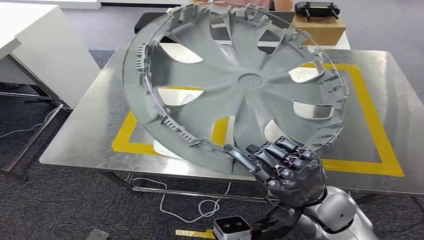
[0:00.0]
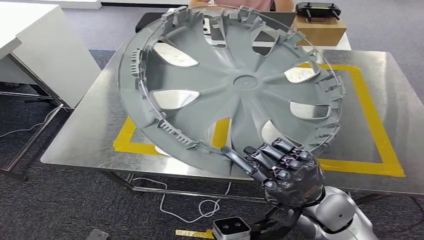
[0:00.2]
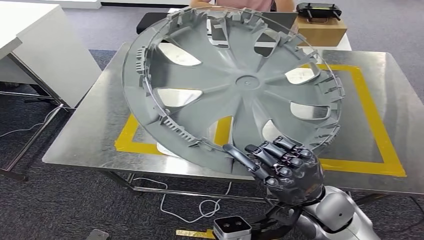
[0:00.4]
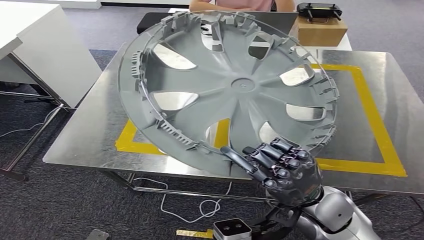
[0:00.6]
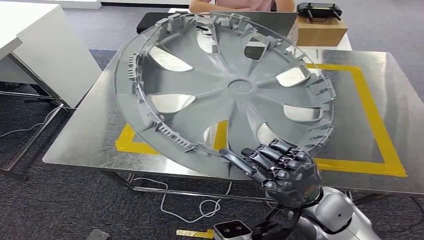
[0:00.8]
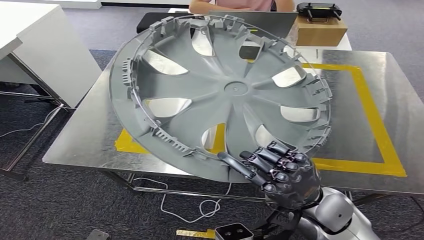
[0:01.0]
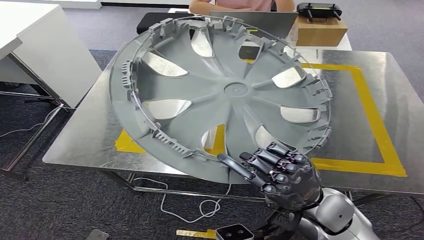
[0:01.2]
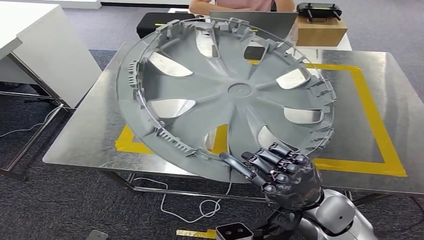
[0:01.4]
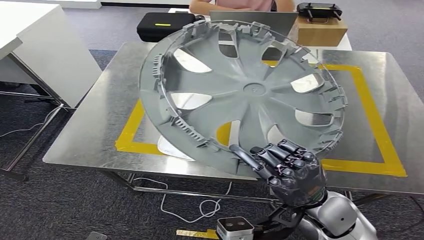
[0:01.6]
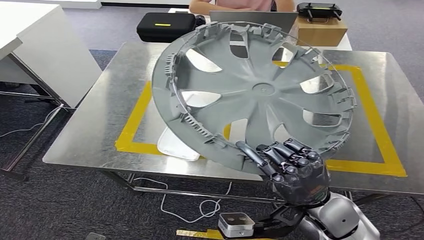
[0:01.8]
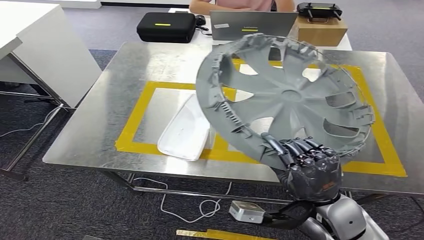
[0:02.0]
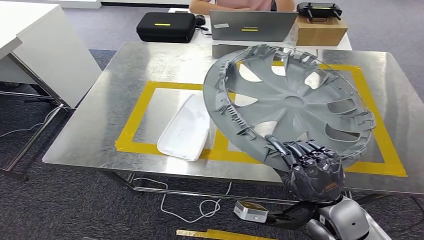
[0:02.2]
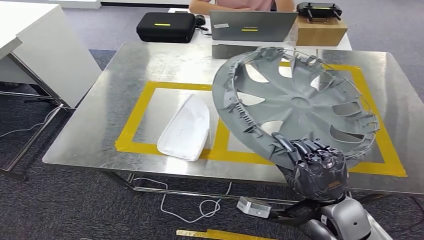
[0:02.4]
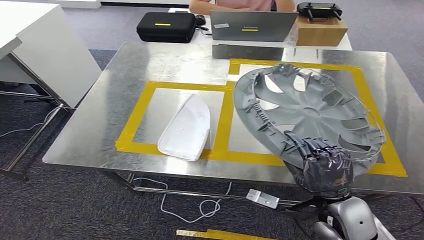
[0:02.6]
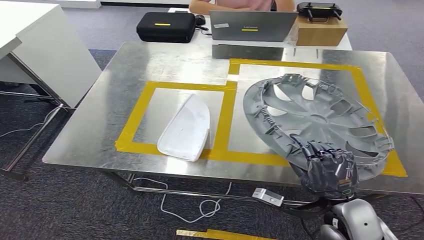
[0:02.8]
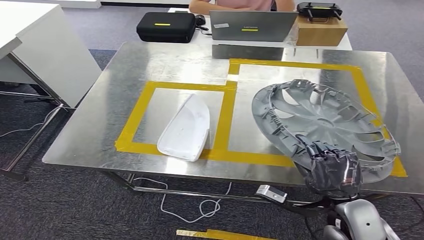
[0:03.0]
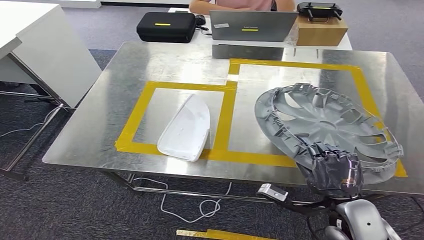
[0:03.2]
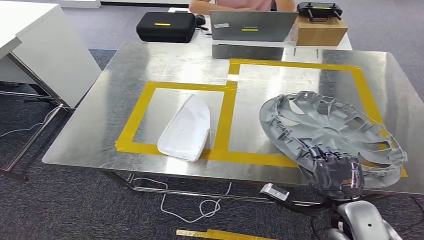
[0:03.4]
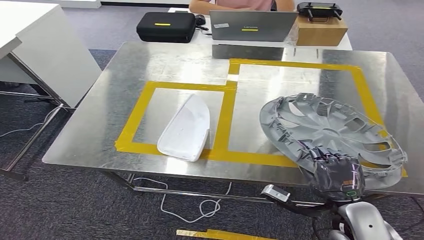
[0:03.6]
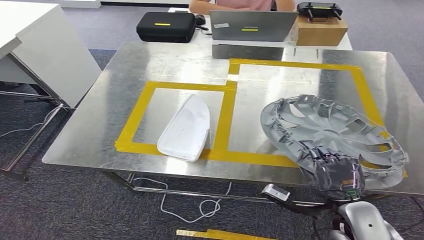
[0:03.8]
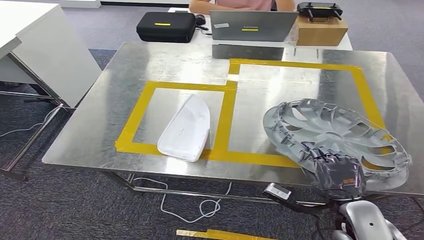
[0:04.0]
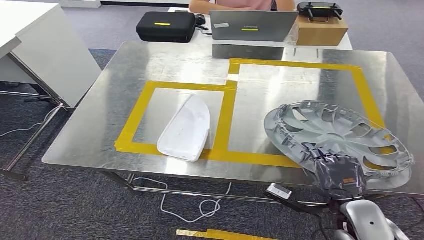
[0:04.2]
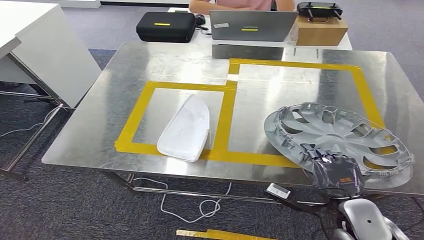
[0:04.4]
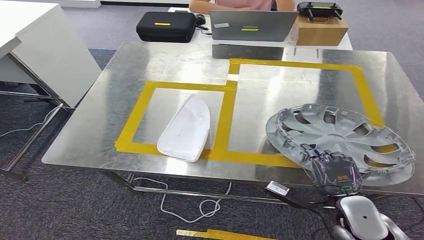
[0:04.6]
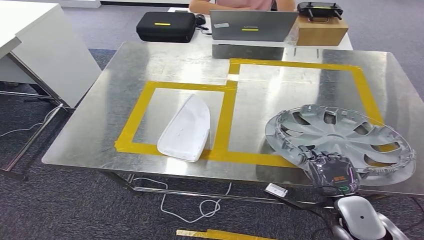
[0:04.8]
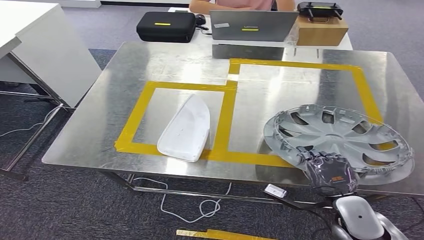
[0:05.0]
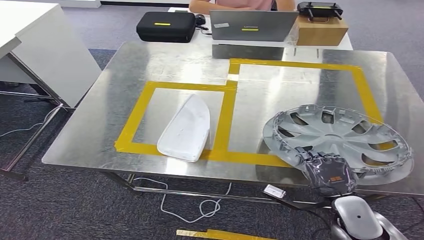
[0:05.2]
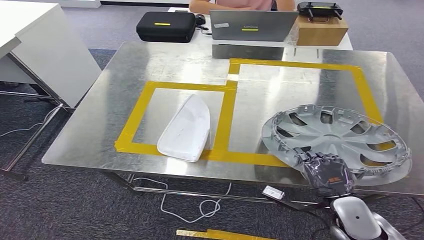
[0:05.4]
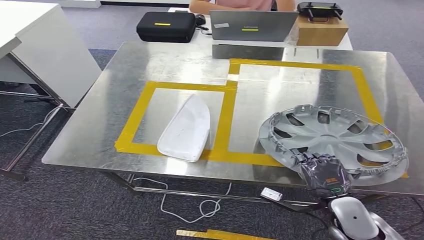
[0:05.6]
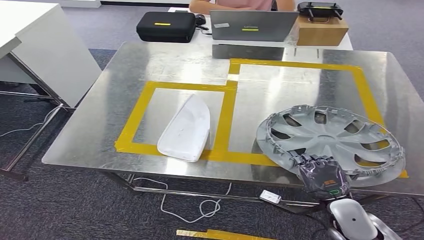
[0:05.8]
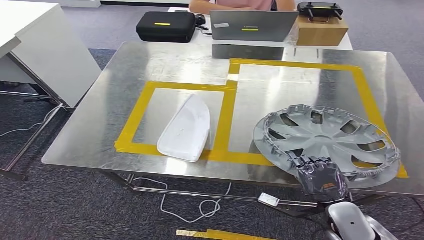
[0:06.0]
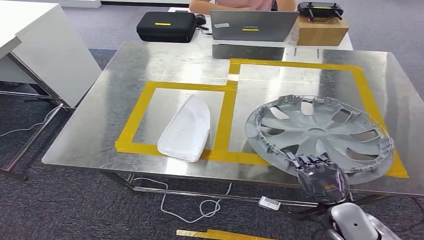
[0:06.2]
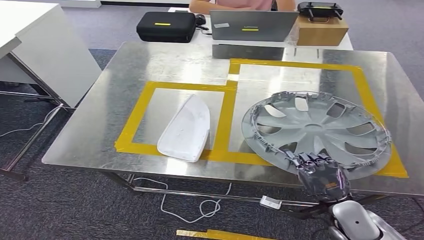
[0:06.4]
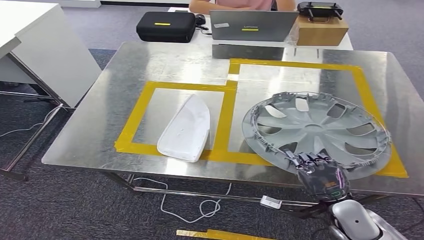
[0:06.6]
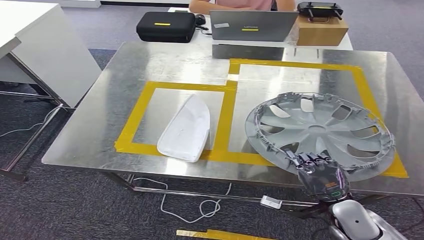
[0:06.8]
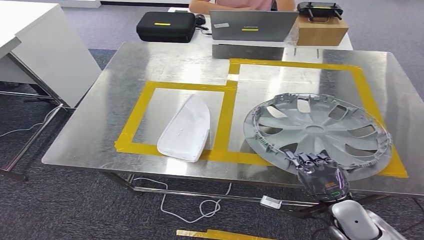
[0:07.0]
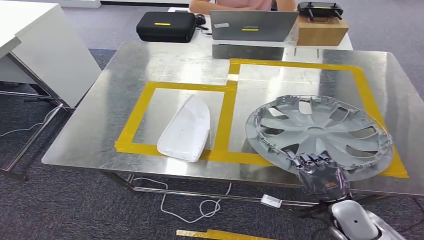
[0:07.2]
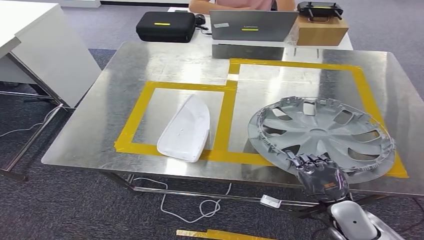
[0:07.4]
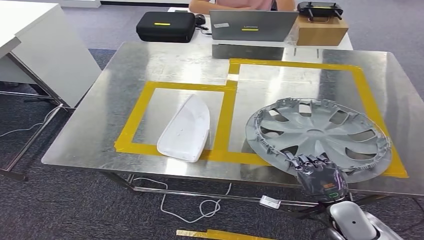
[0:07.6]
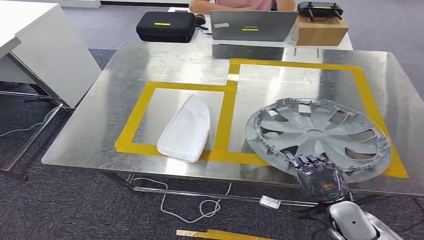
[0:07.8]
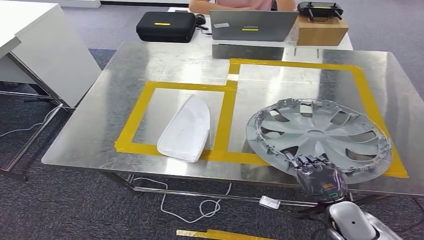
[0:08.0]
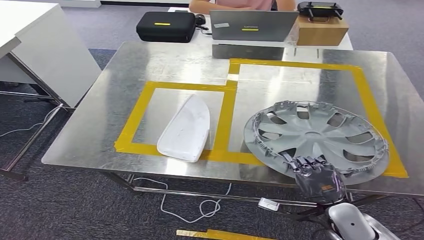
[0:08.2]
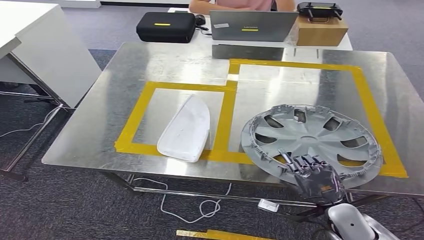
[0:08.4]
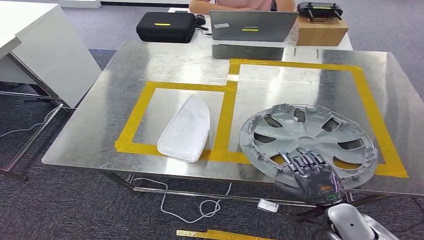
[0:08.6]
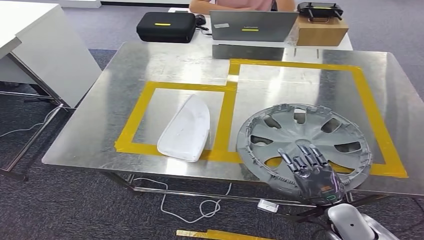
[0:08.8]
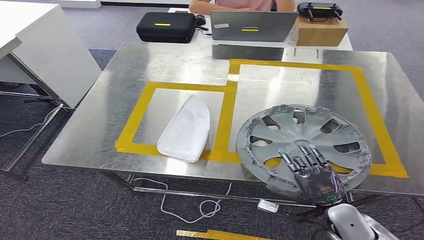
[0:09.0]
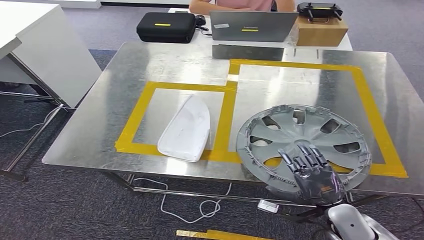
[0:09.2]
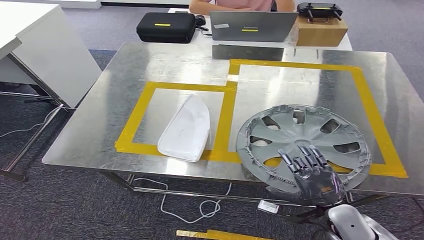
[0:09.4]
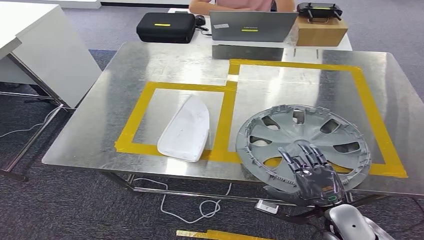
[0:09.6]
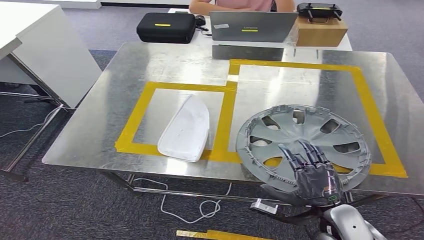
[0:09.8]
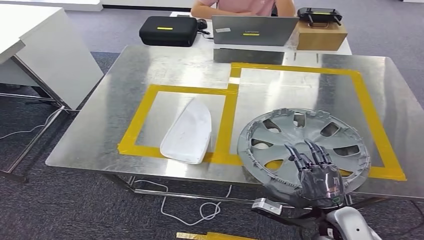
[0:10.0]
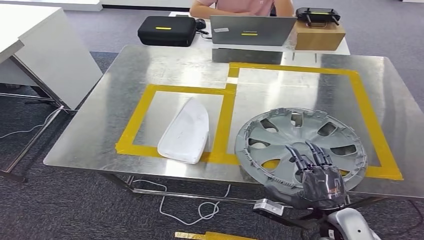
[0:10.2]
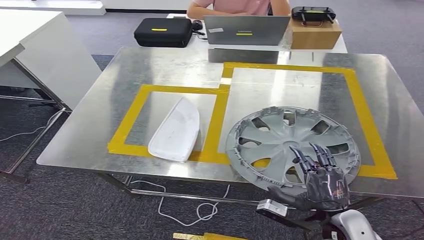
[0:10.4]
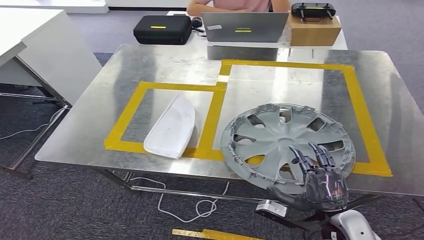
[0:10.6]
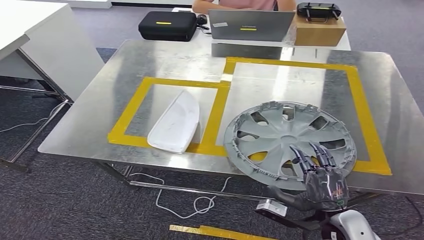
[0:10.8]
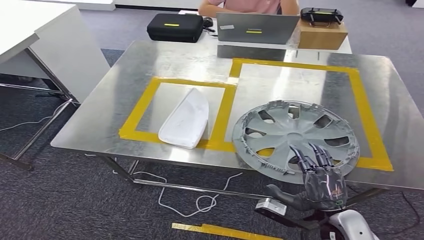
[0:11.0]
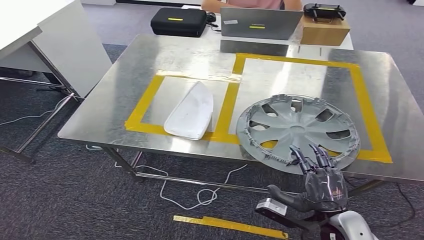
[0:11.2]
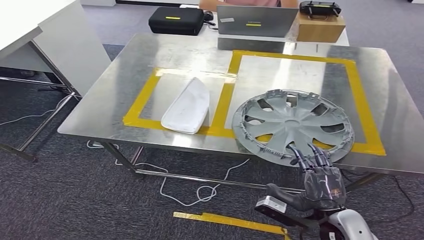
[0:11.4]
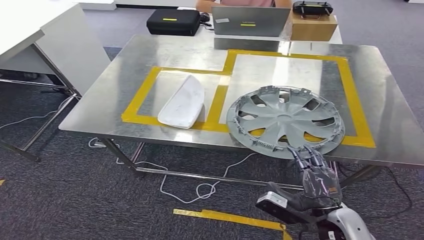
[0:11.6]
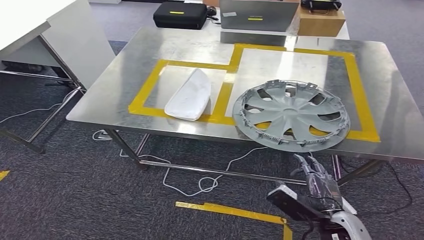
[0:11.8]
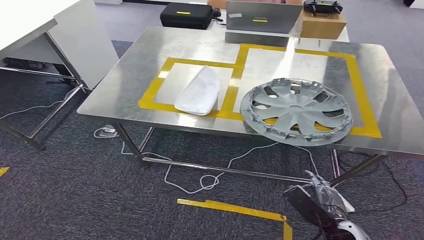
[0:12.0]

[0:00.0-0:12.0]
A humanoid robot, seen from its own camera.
Step, 0:00.0 to 0:10.4: Insert the small component into the corresponding slot on the workbench.
0:00.0 to 0:01.6: The hands move only a little.
0:03.0 to 0:04.4: The hands stay close to where they were, moving slightly.
0:04.4 to 0:07.6: The hands make only small movements.
0:07.6 to 0:09.0: The two hands keep their place.

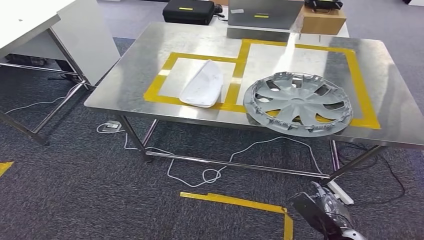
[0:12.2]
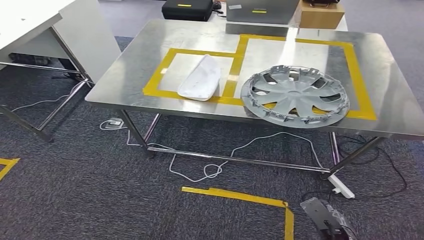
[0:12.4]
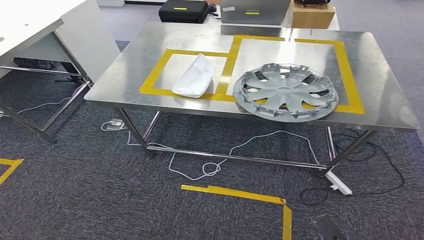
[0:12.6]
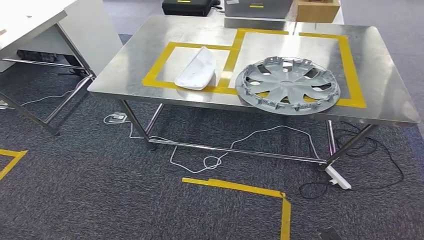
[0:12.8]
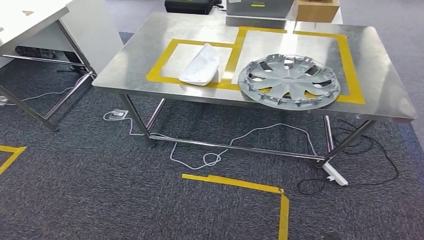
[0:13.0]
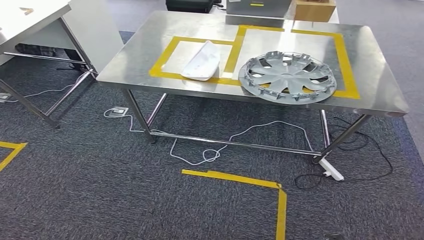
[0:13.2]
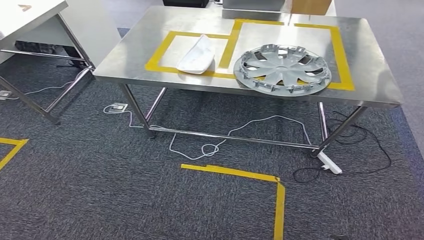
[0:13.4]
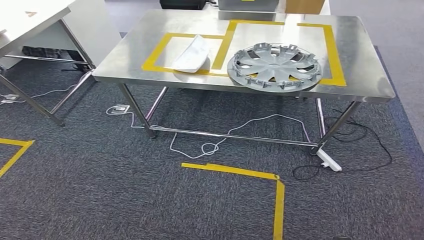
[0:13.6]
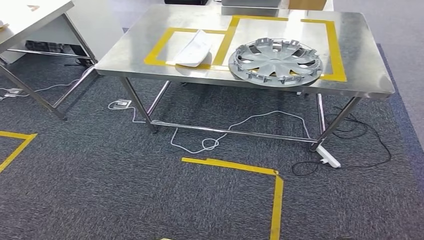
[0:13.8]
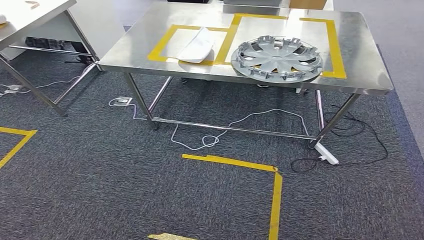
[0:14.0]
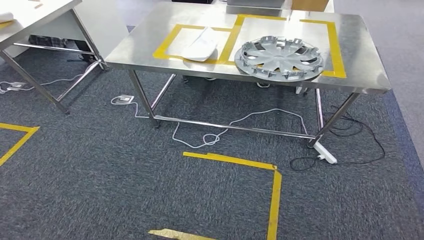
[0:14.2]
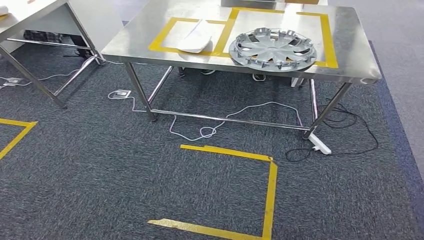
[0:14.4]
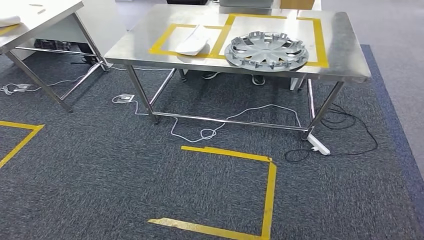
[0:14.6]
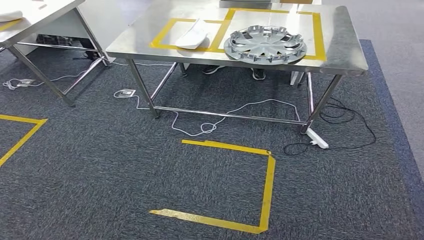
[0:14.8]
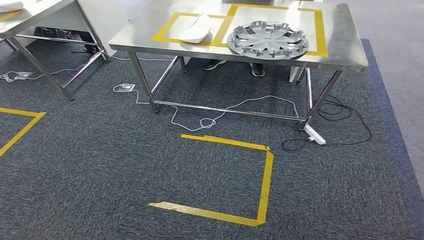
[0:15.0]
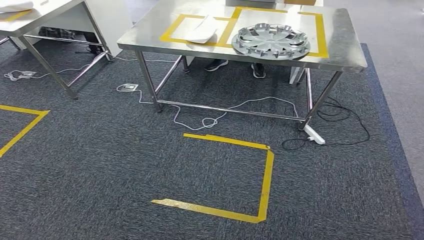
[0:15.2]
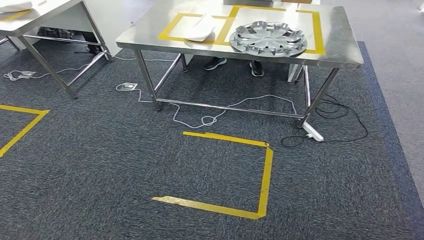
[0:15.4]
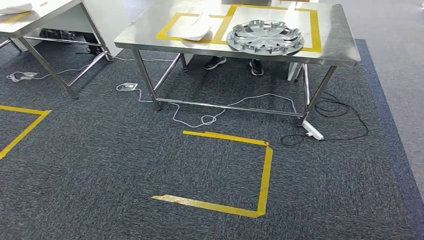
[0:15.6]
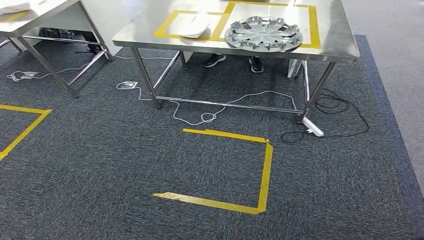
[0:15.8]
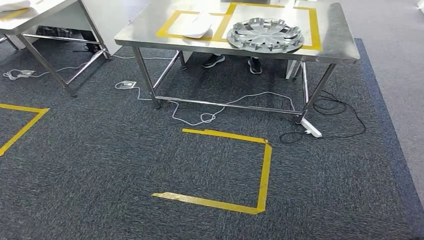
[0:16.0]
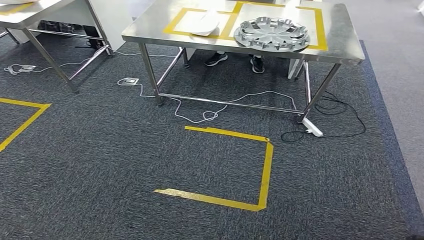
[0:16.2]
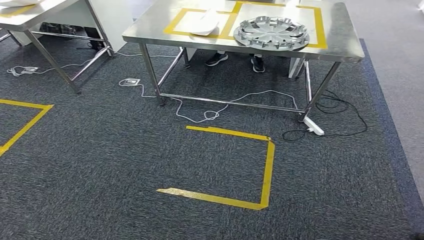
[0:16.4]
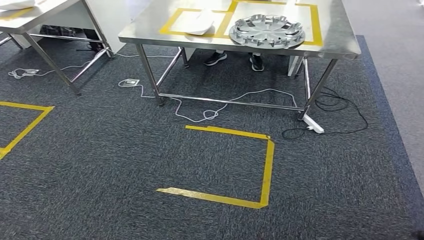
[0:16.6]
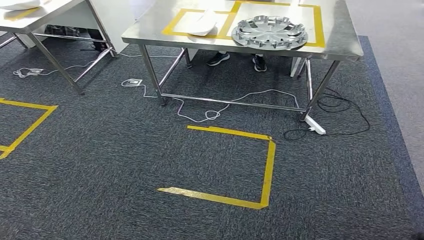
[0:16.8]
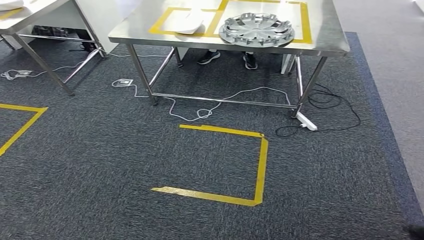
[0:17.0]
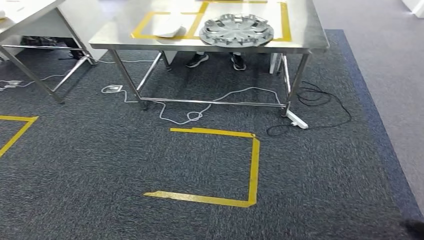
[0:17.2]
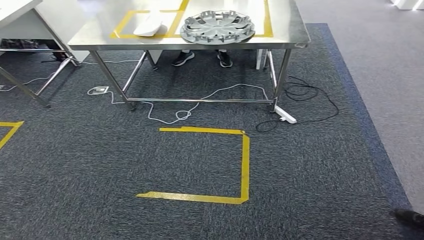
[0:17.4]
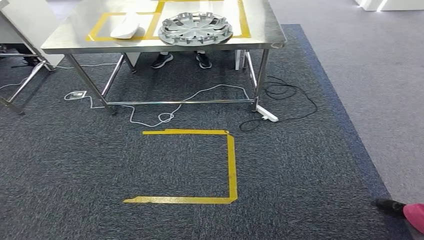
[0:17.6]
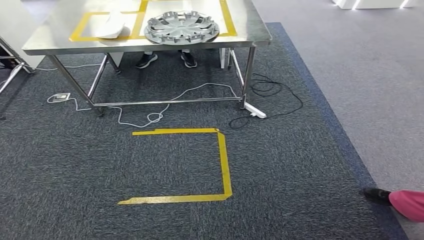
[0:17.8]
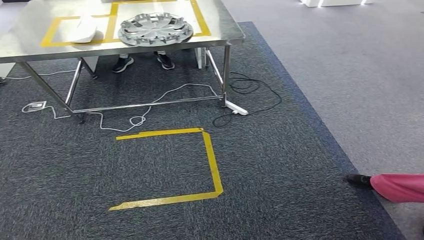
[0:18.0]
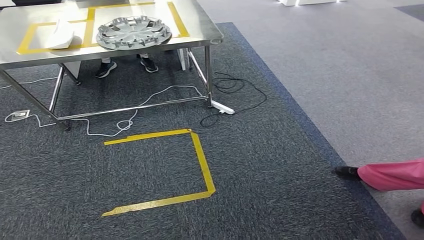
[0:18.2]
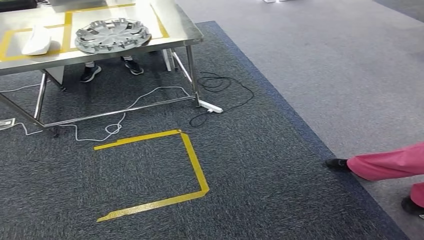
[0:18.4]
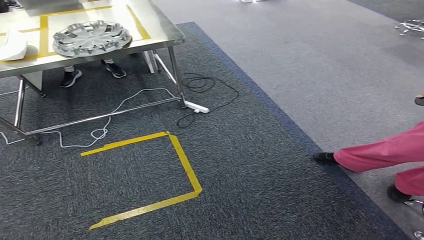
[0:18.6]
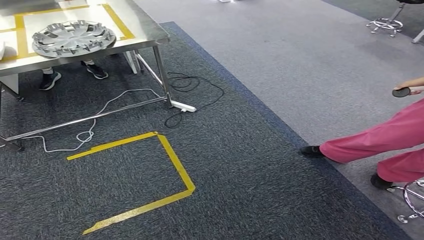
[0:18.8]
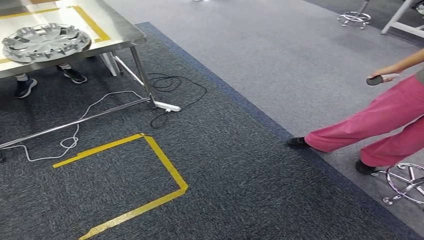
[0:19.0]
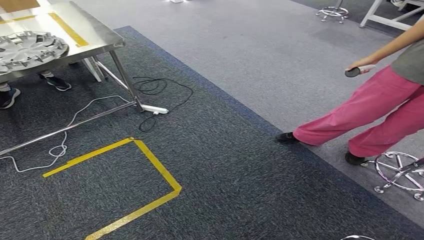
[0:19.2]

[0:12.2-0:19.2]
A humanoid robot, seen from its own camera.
0:15.0 to 0:16.4: The two hands keep their place.
